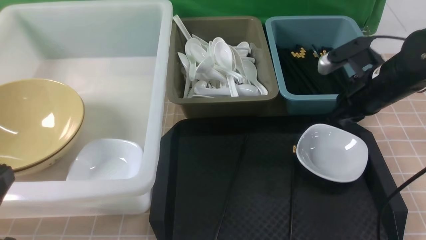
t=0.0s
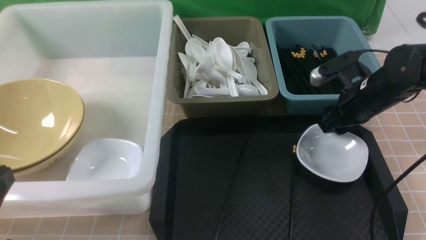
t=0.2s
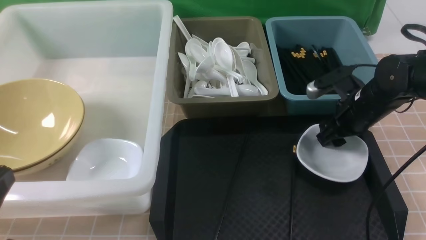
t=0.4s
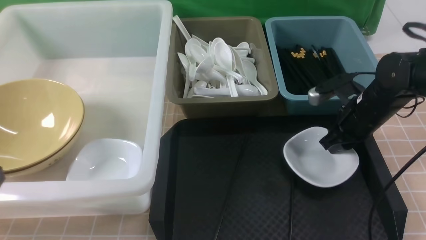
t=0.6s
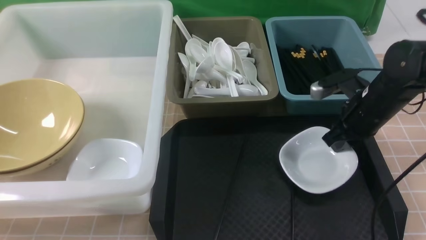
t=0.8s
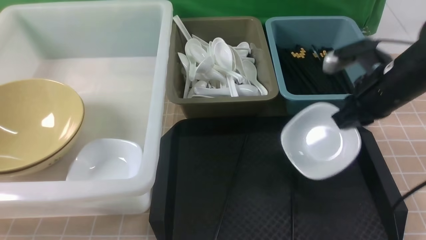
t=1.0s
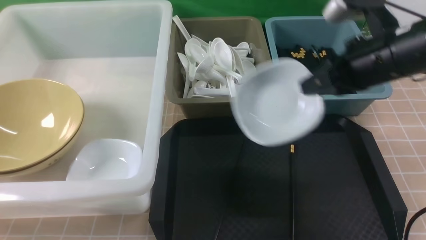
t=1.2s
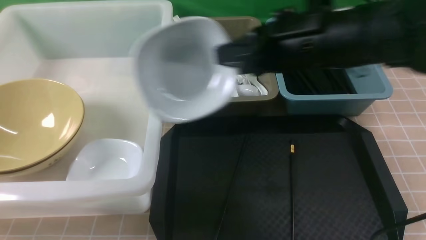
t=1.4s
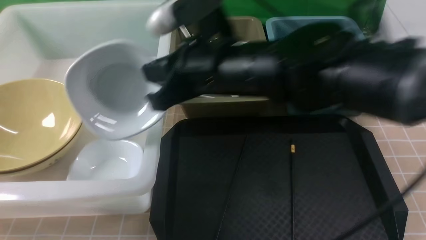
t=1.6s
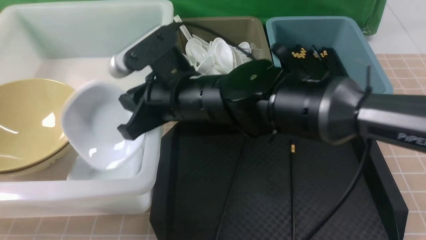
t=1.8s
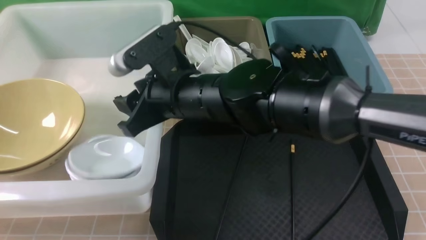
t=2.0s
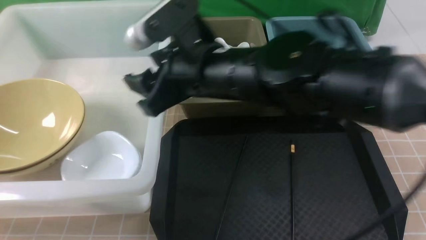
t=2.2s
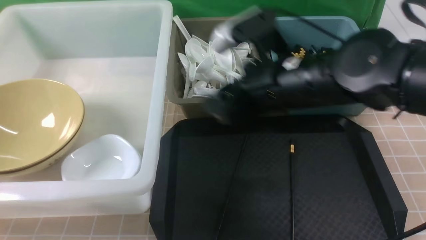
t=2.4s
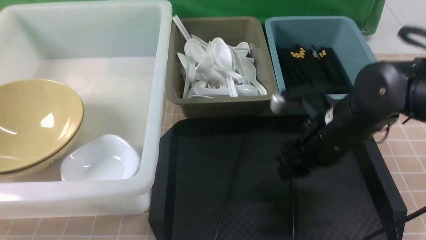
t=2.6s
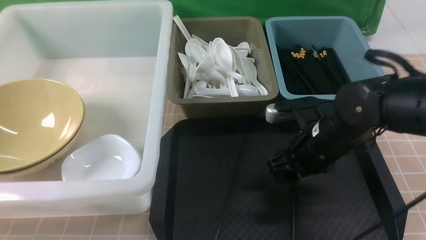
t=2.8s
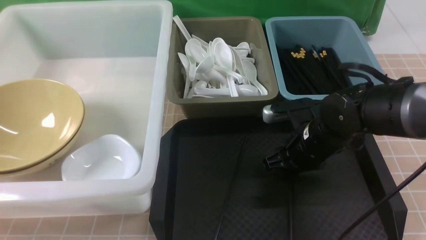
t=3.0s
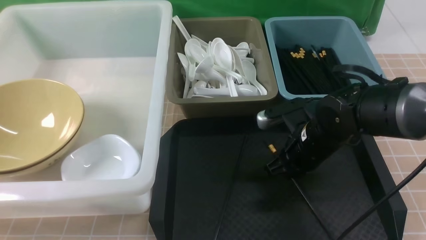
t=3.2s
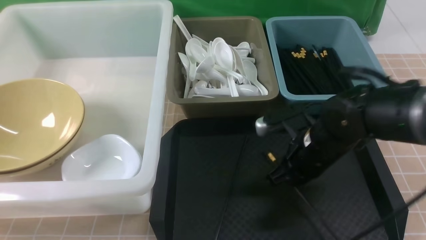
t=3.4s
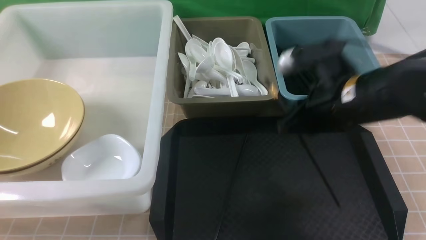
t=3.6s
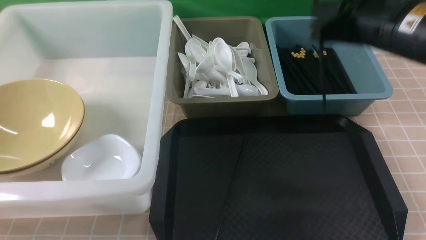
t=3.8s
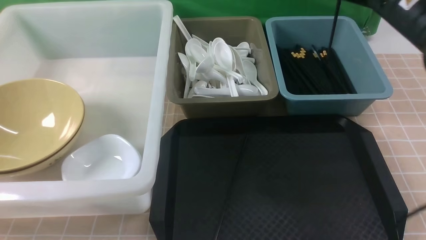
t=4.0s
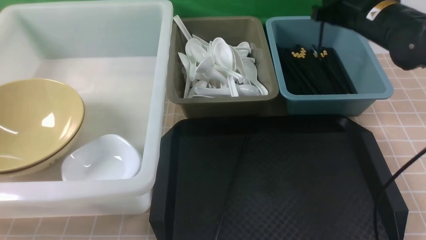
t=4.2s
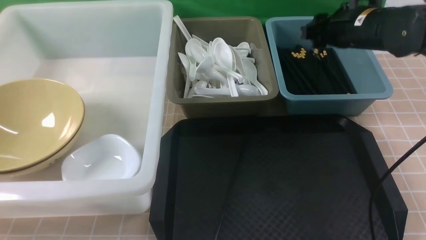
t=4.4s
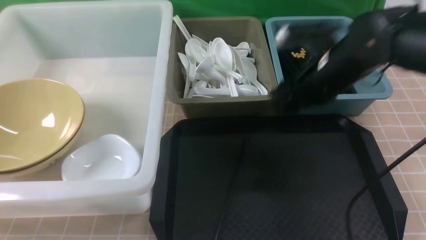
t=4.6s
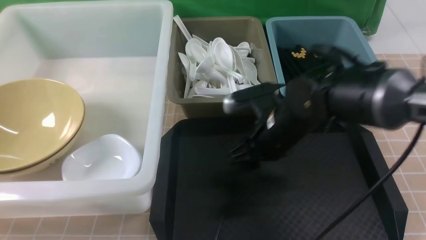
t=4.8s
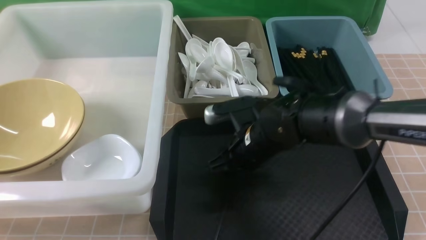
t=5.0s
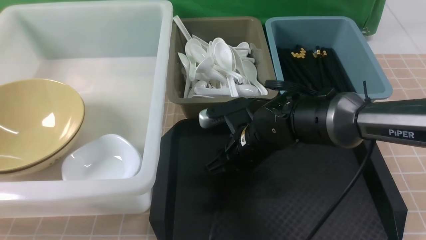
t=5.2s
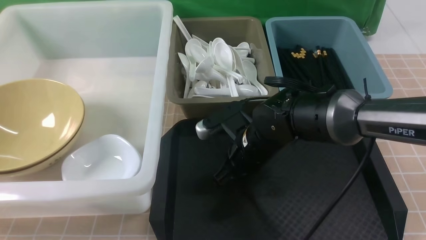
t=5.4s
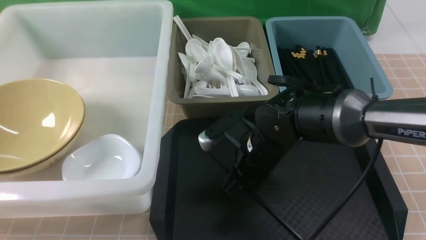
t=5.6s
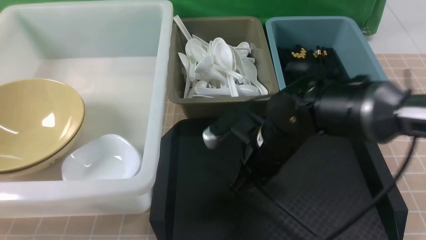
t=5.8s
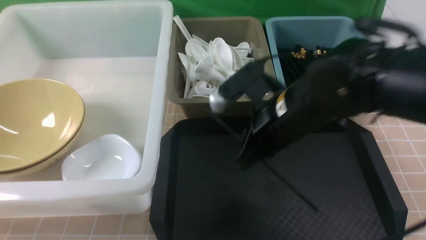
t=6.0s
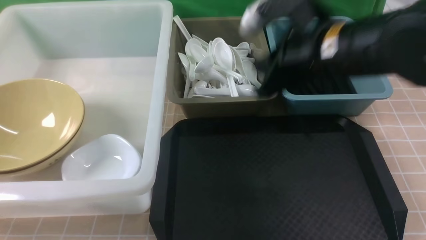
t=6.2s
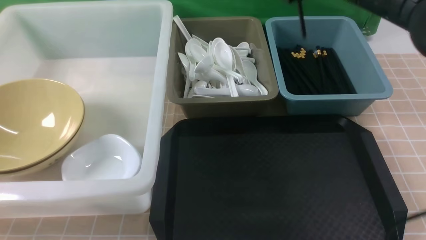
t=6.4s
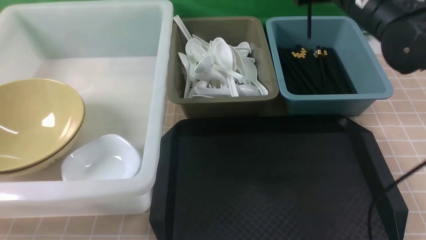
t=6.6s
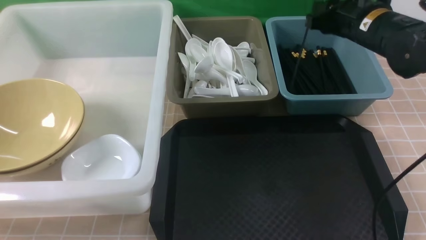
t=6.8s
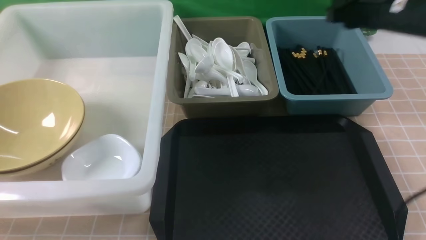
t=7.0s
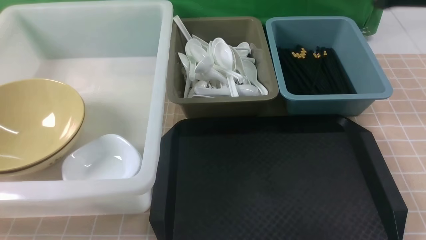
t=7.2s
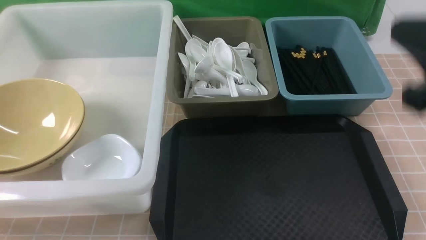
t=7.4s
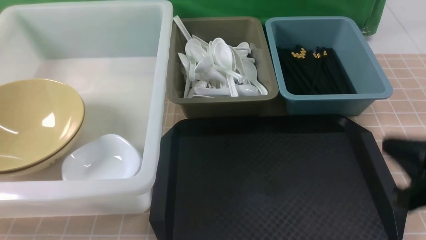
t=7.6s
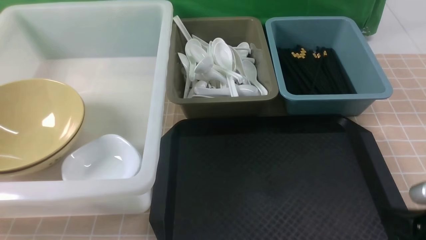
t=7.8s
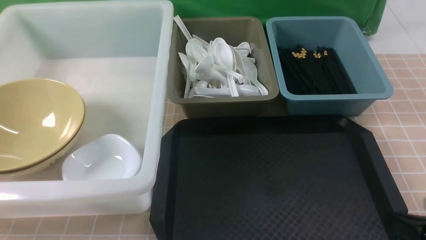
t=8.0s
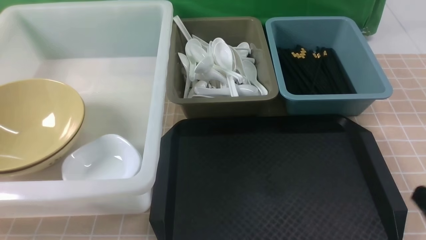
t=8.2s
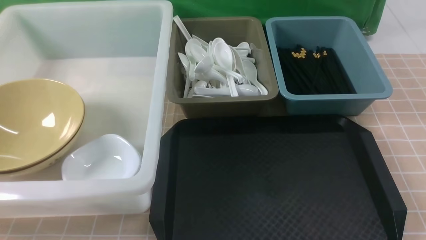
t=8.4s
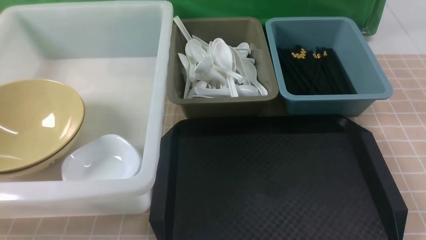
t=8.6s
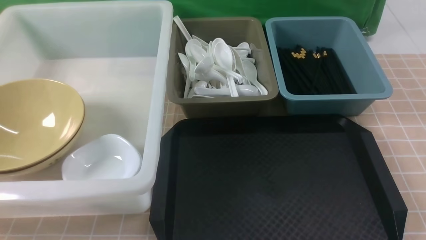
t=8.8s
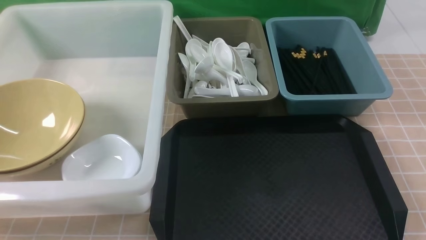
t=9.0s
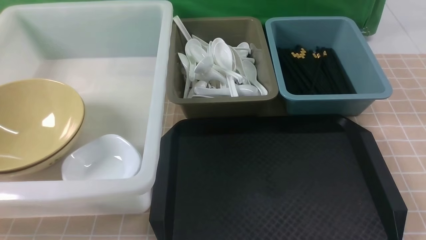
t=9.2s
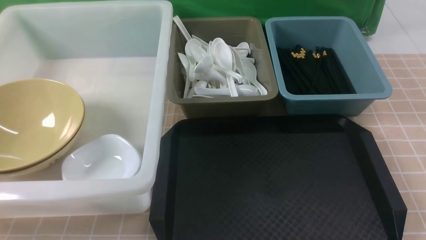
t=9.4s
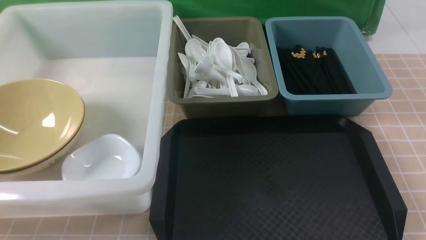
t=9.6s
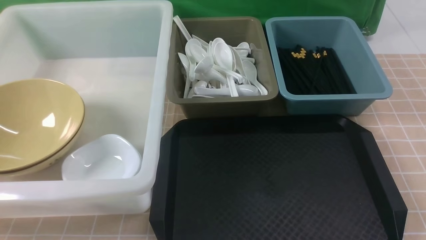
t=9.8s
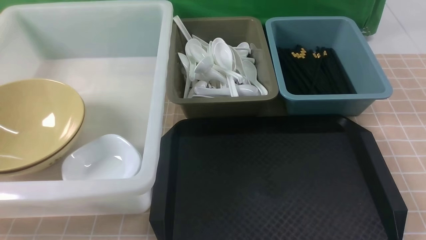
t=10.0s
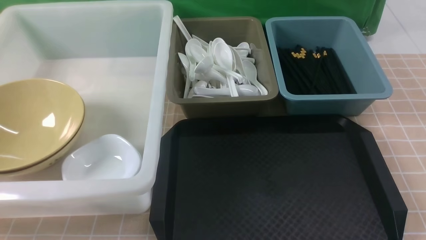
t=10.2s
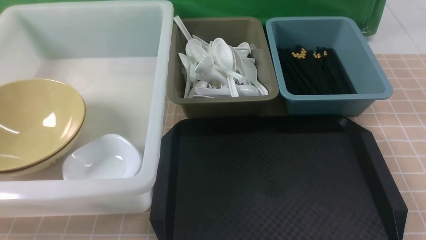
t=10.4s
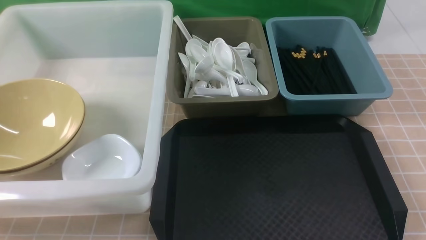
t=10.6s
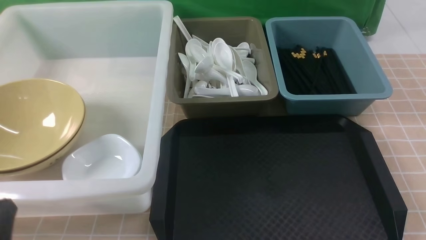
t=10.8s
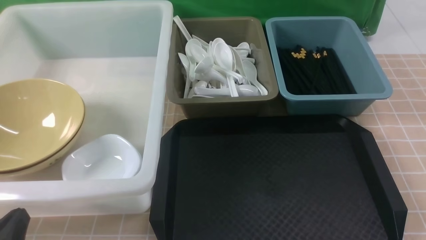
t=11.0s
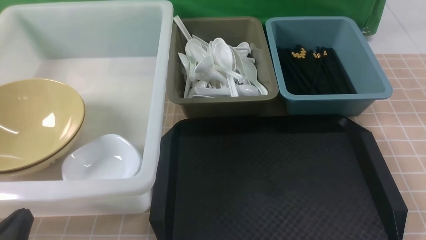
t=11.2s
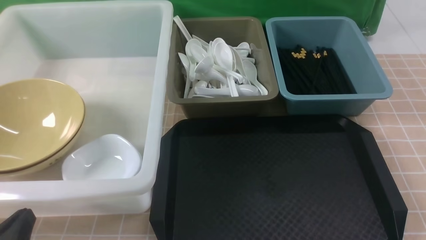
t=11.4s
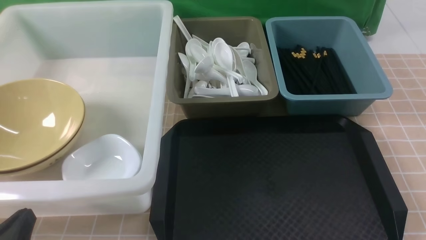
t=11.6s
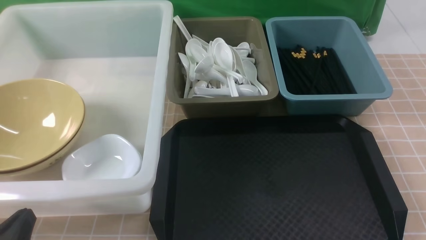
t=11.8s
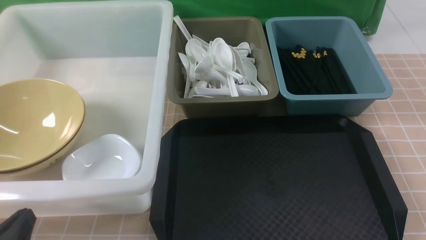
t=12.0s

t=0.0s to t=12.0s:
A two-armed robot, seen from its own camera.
Task of the whole recording: on brown table put chopsticks spoon bowls plates into blue grey white boxes.
Step, t=1.0s to t=2.2s: use the right arm to put the plate into the large storage box on the left.
Step, t=2.4s to t=3.4s: use the right arm to grab a chopstick.
Step, t=3.6s to t=4.4s: use the right arm to put a chopstick into the small storage box on the right.
Step, t=4.6s to t=5.8s: use the right arm to grab a chopstick.
Step, t=6.0s to t=6.8s: use the right arm to put a chopstick into the small storage box on the right.
t=0.0s to t=1.6s: The right gripper is displaced to the left and upward by about 25 cm, and opens, then closes again.
t=1.6s to t=3.0s: The right gripper moves downward and to the right, some 20 cm, and opens its fingers.
t=3.0s to t=4.4s: The right gripper travels upward and forward by about 15 cm, and closes, then reopens.
t=4.4s to t=6.0s: The right gripper travels backward and to the left by about 15 cm, and closes its fingers.
t=6.0s to t=7.6s: The right gripper is displaced to the right and backward by approximately 20 cm, and opens, then closes again.
t=7.6s to t=9.0s: The right gripper heads downward, backward and to the right, covering some 15 cm.
t=10.4s to t=12.0s: The left gripper moves downward, some 10 cm.

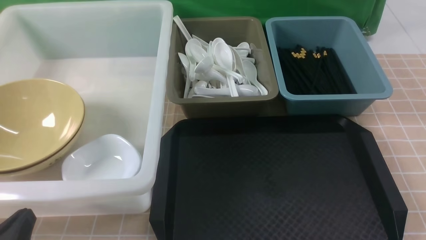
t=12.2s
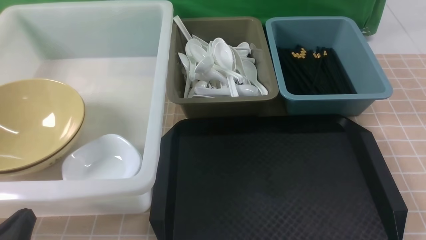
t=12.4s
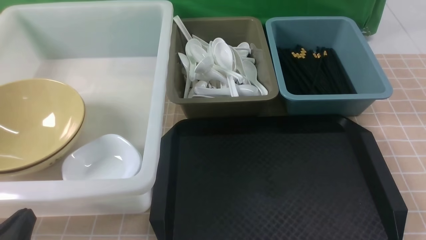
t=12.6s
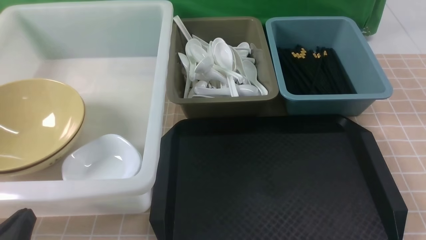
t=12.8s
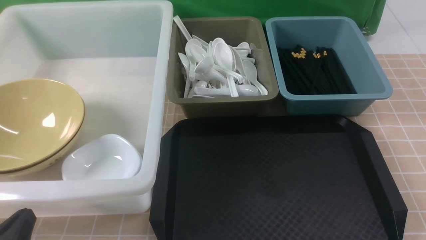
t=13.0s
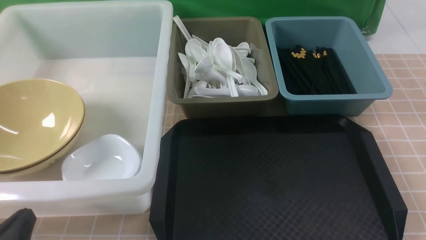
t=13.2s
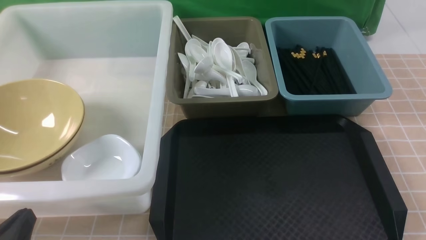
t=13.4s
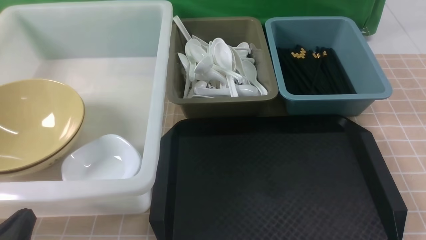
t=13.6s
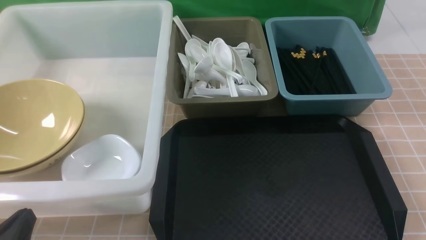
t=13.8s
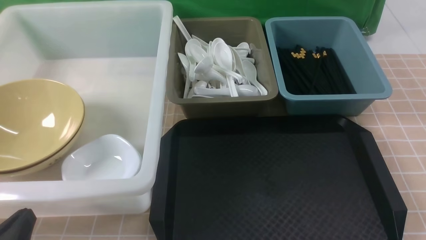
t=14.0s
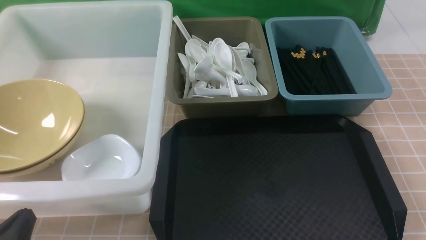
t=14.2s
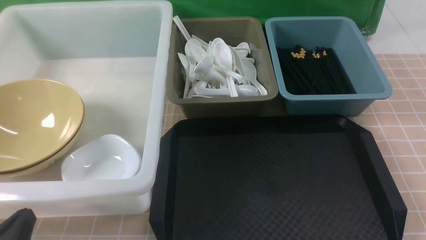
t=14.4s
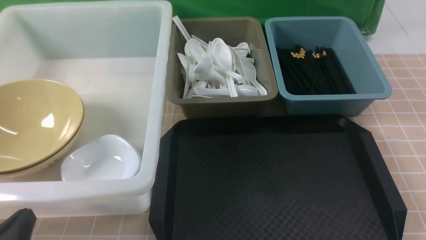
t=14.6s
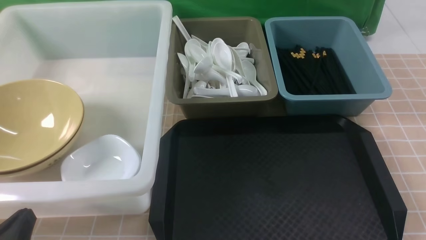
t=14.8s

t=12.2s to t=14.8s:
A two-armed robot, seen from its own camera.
Task of the whole recording: on brown table put chopsticks spoon bowls plates into blue grey white boxes.
t=12.2s to t=14.8s: Neither gripper changes place.
